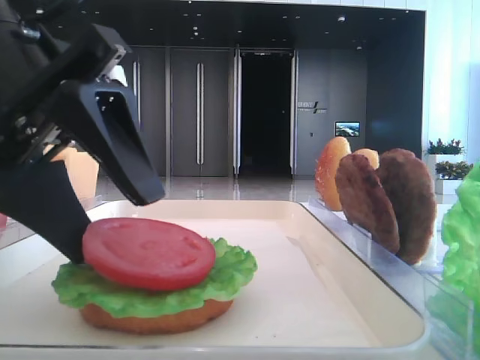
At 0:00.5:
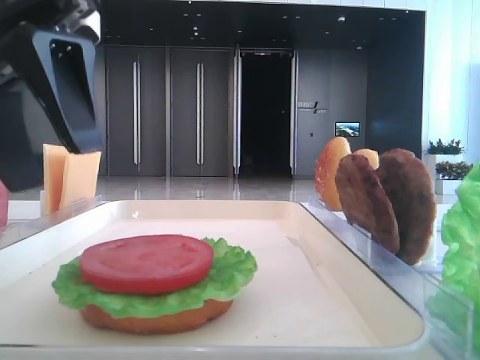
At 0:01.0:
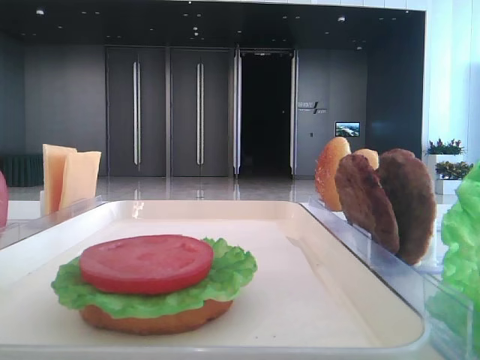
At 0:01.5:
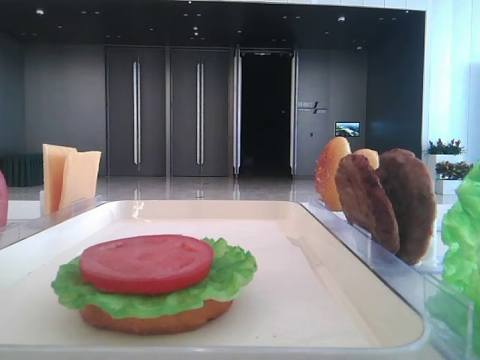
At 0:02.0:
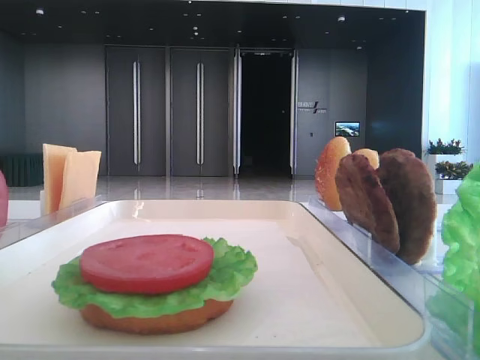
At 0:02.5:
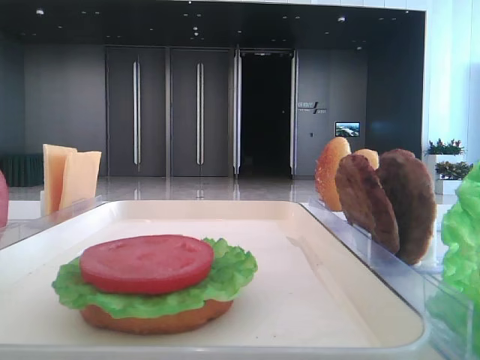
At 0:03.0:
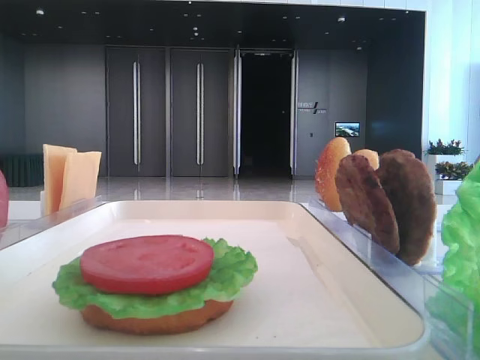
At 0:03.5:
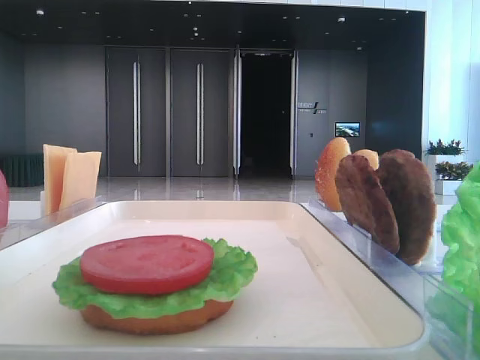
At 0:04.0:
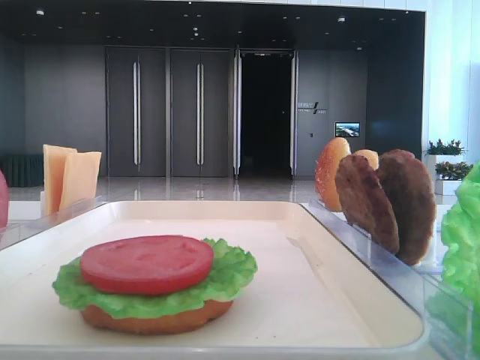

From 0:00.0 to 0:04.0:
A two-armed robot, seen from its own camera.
From 0:00.0 to 0:02.0: The left gripper shifts about 20 cm to the left and upward.
From 0:02.0 to 0:04.0: The left gripper moves backward, about 25 cm.

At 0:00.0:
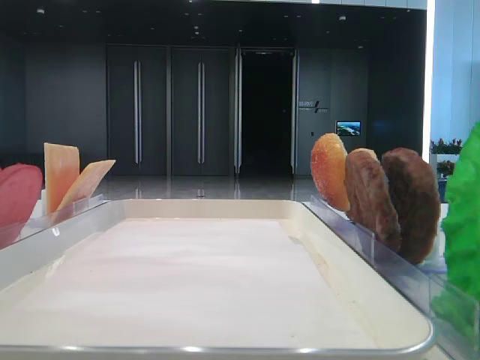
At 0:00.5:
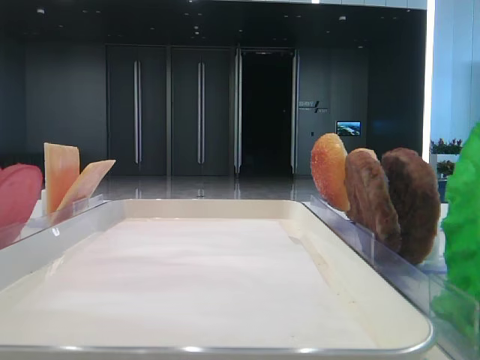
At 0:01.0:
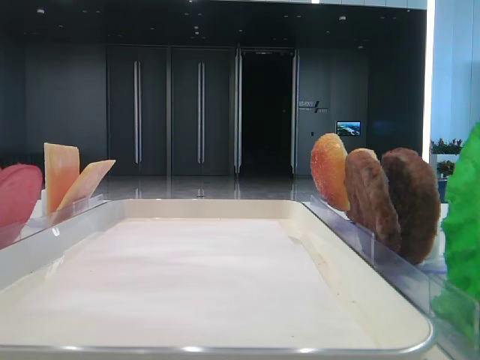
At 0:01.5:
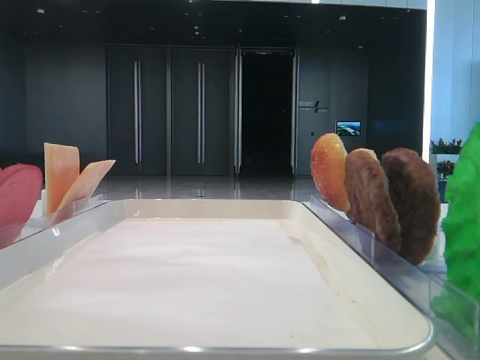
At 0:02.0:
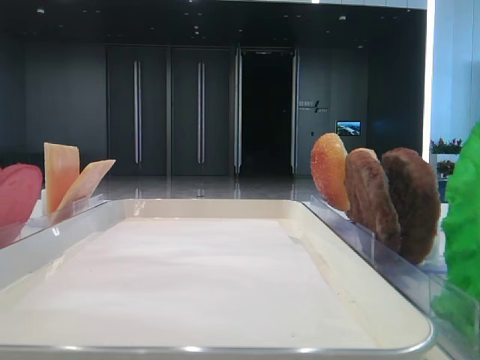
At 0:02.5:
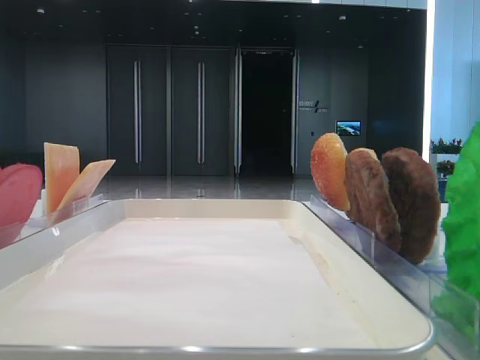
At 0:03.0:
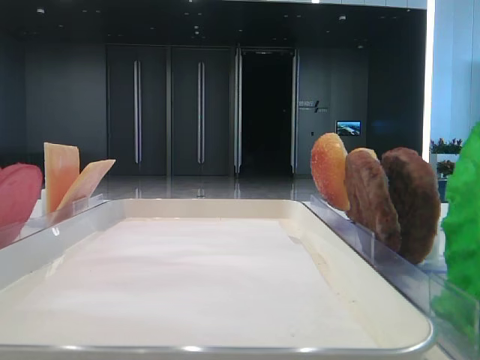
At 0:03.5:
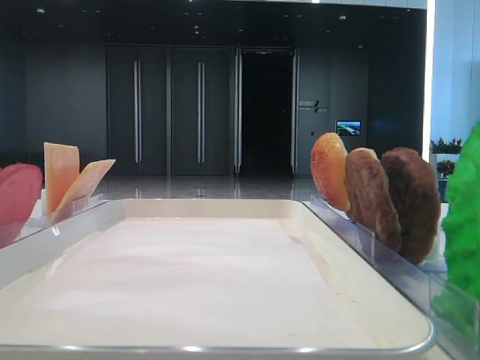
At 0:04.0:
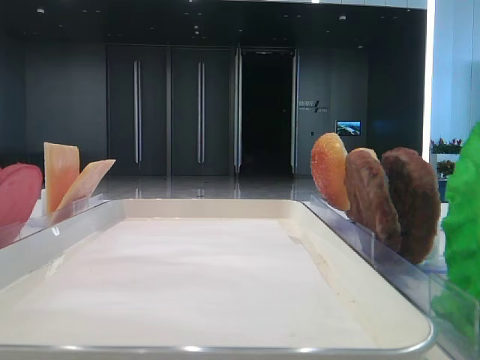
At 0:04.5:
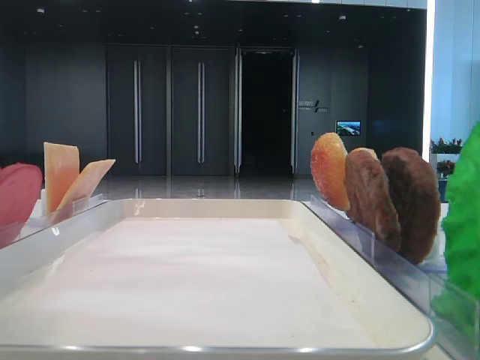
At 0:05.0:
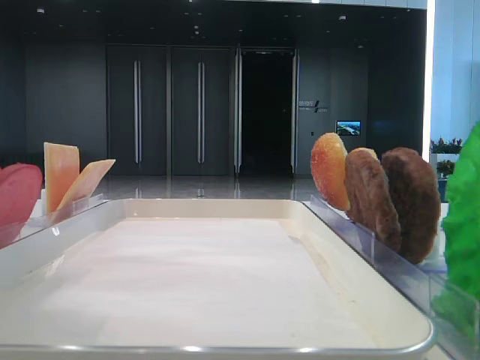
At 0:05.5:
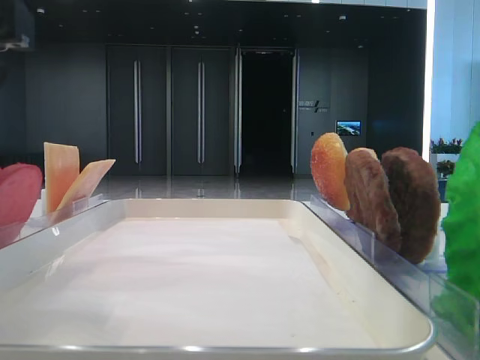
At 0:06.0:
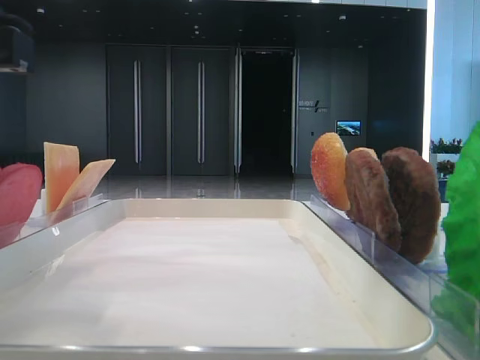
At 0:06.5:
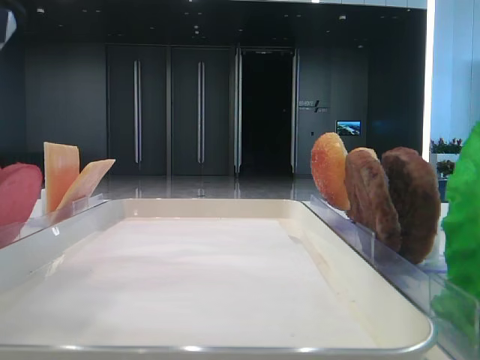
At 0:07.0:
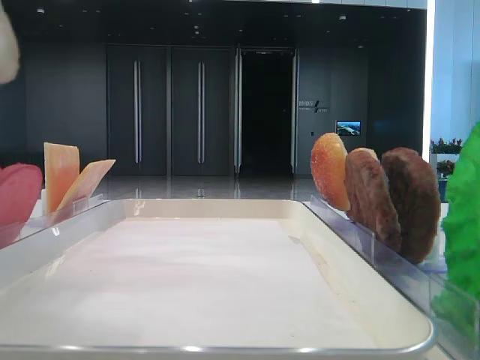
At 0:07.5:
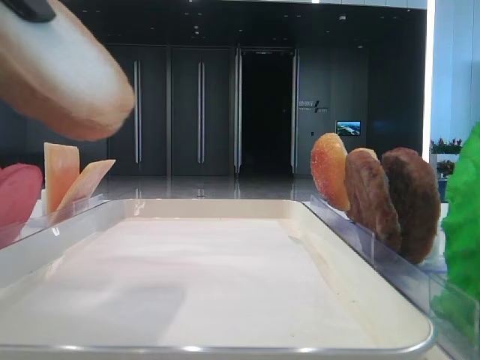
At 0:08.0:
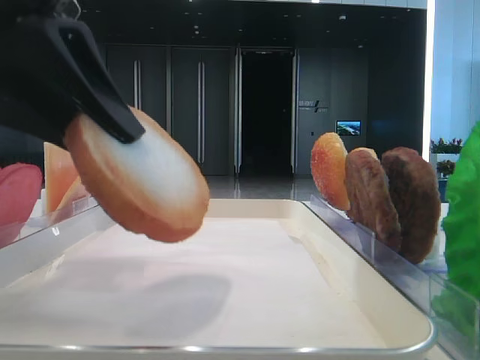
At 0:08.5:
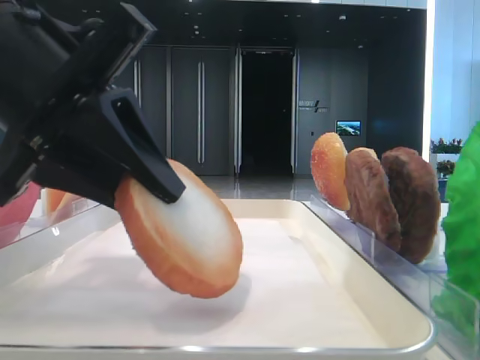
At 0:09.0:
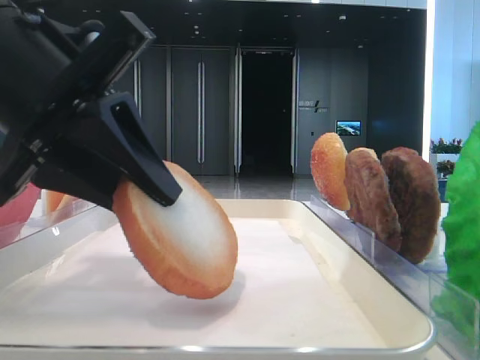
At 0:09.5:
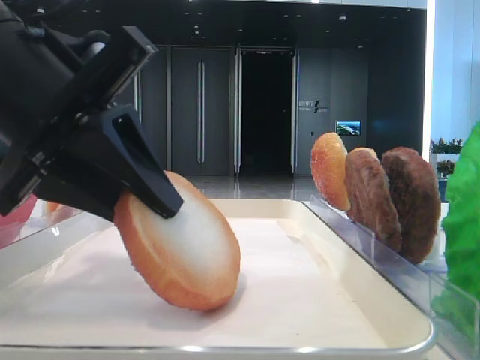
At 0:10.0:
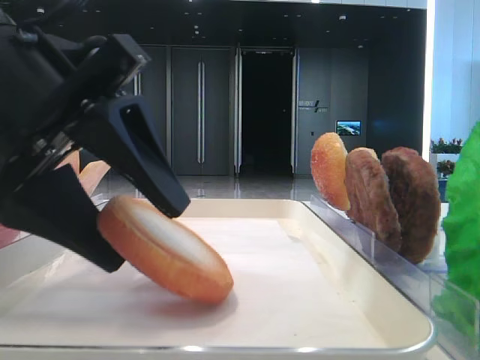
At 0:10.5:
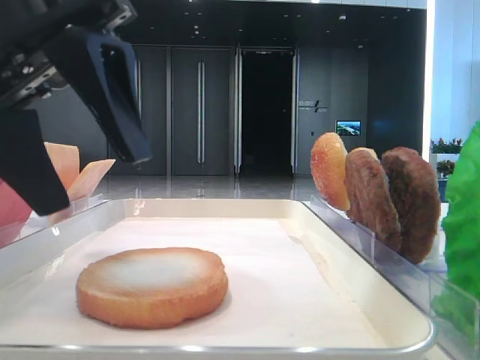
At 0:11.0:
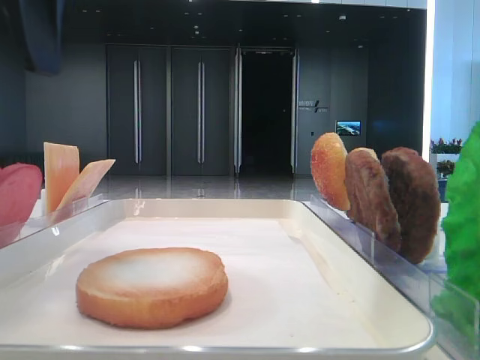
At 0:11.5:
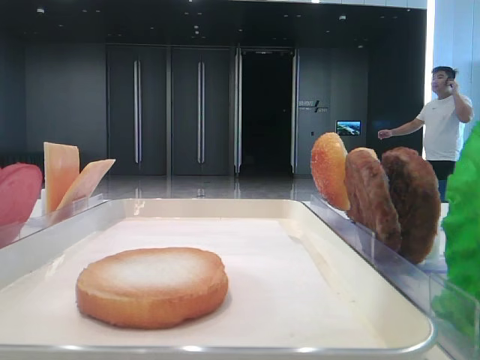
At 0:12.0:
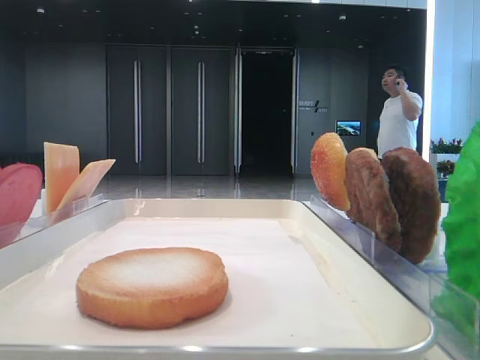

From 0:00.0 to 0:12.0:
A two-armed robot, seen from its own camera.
Step, from 0:06.5 to 0:10.0: Place the bread on the tray with the left hand.
From 0:04.0 to 0:06.0: The left gripper travels to the right and downward by some 15 cm, and closes up.
From 0:06.0 to 0:08.0: The left gripper goes upward and returns, roughly 10 cm each way, and closes its fingers.
From 0:08.0 to 0:10.0: The left gripper moves about 5 cm, and opens its fingers.
From 0:10.0 to 0:12.0: The left gripper moves to the left and upward, roughly 20 cm.

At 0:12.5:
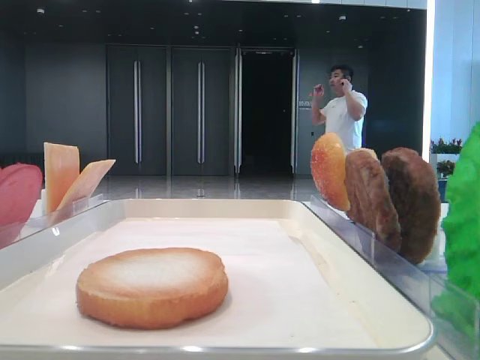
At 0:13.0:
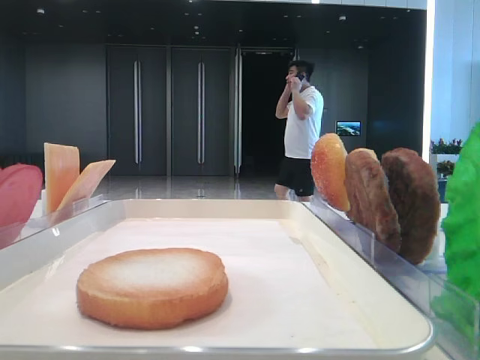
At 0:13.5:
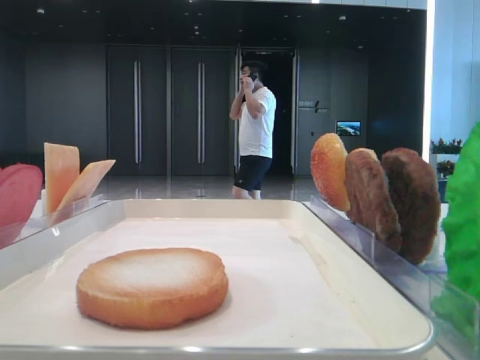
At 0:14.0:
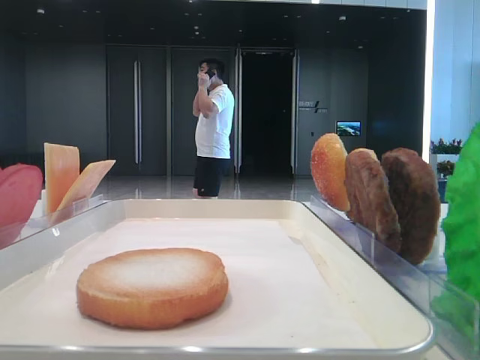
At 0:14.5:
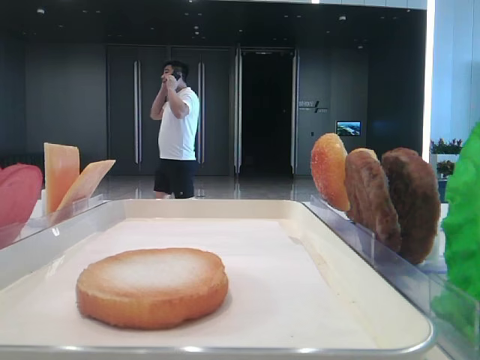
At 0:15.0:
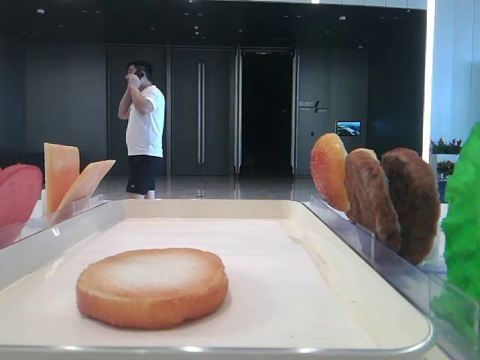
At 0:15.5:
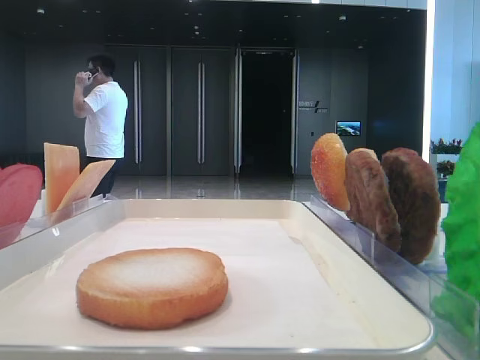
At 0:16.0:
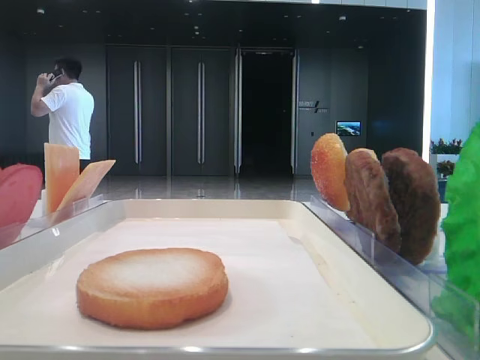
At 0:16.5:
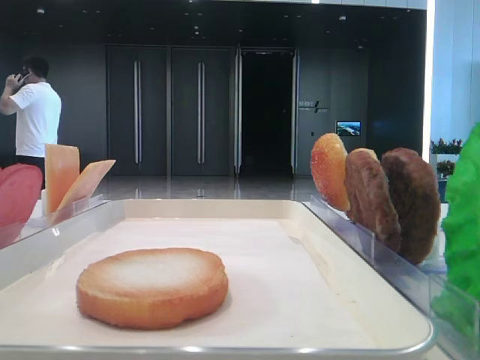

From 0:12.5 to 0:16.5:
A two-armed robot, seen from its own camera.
From 0:12.5 to 0:14.5: The left gripper shifts some 10 cm backward.
From 0:14.5 to 0:16.5: The two grippers keep their place.
